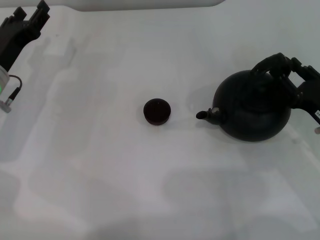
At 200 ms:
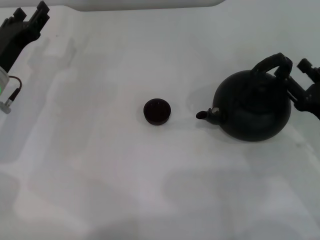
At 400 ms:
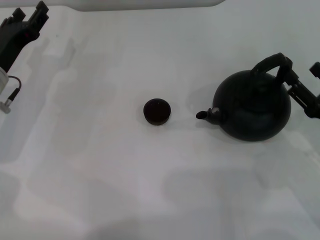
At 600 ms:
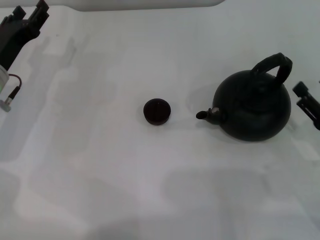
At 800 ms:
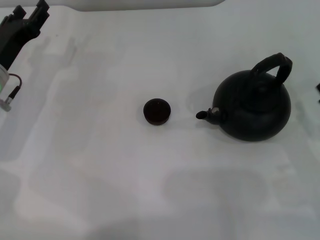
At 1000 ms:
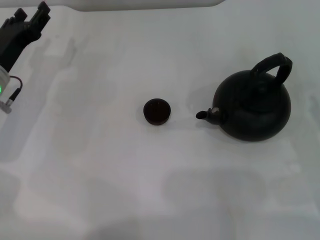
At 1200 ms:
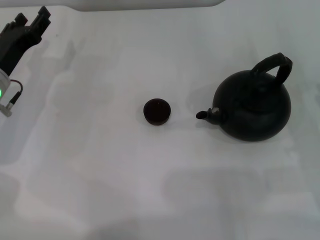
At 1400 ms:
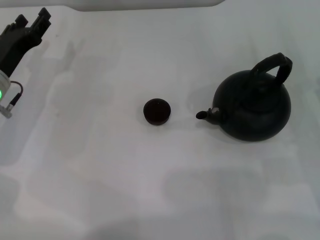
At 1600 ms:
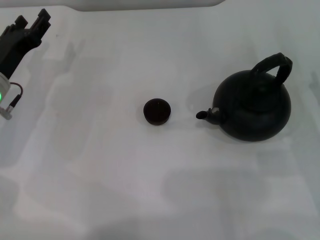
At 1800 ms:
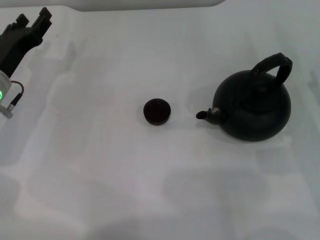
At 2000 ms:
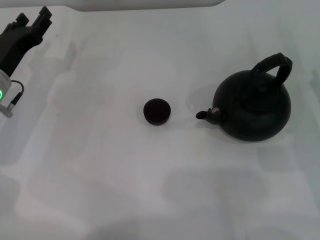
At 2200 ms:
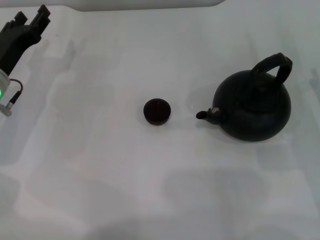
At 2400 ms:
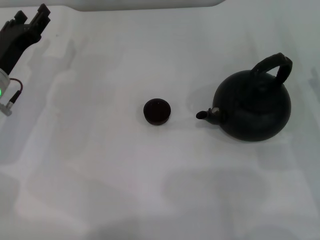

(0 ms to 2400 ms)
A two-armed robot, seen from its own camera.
Task of the whole recording: Grasp the handle of the teapot with one hand and pour tea into the teacup.
0 ms - 1200 ms: The right gripper changes place by about 5 cm, and opens up.

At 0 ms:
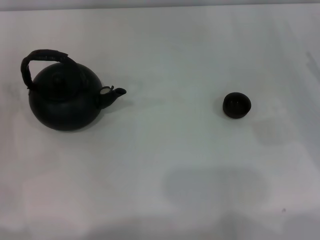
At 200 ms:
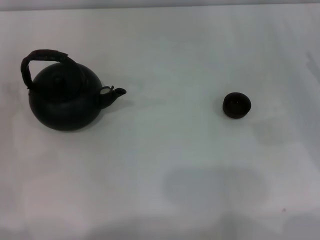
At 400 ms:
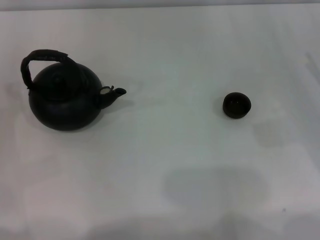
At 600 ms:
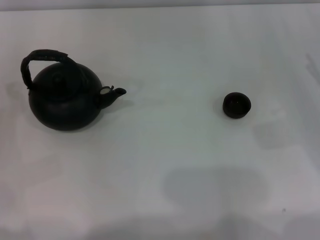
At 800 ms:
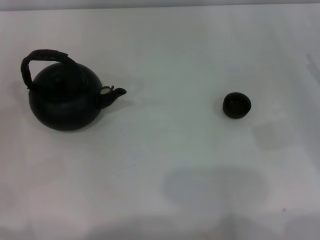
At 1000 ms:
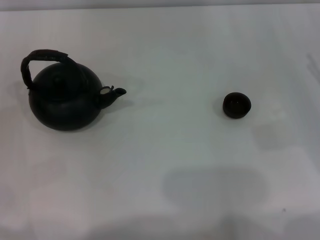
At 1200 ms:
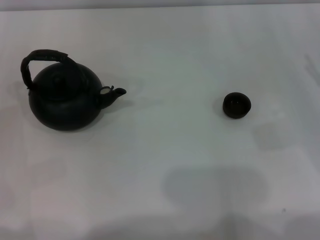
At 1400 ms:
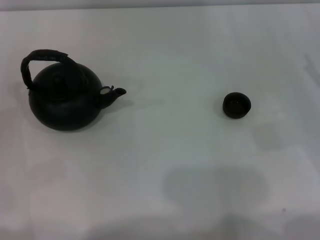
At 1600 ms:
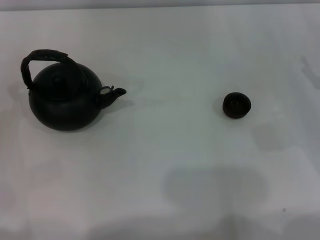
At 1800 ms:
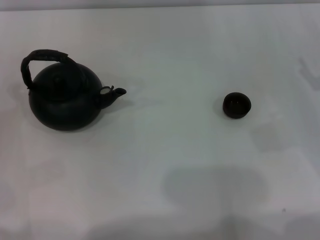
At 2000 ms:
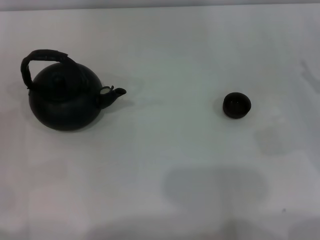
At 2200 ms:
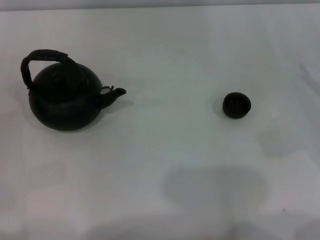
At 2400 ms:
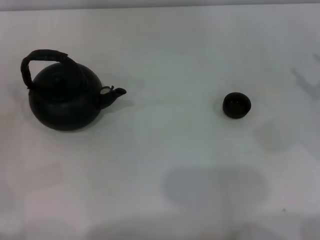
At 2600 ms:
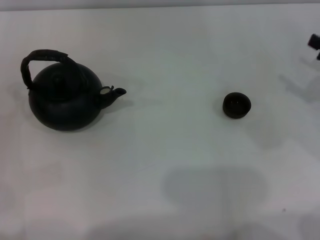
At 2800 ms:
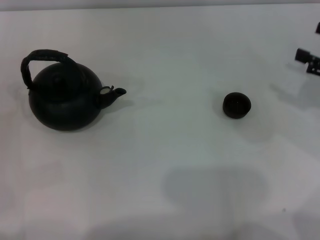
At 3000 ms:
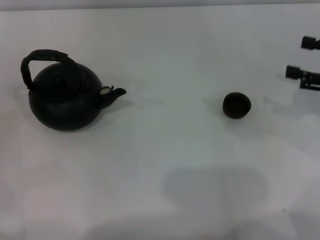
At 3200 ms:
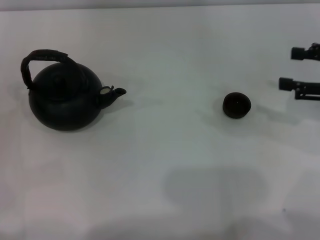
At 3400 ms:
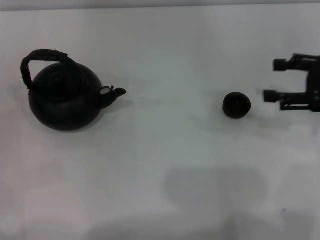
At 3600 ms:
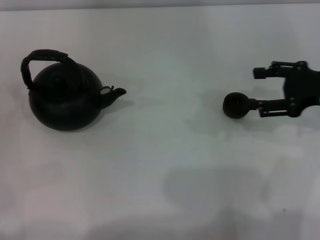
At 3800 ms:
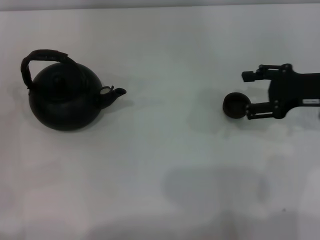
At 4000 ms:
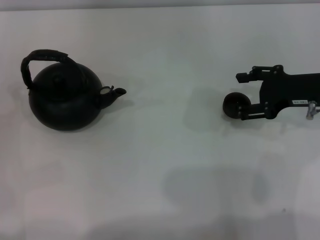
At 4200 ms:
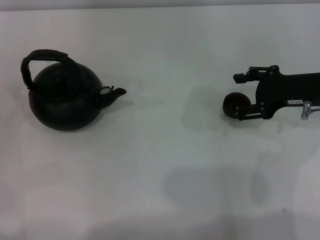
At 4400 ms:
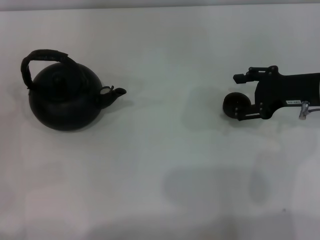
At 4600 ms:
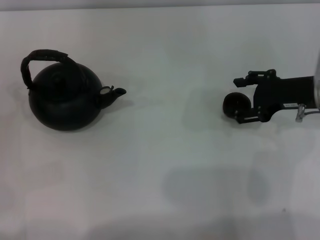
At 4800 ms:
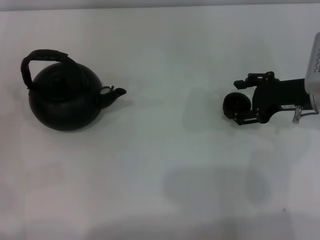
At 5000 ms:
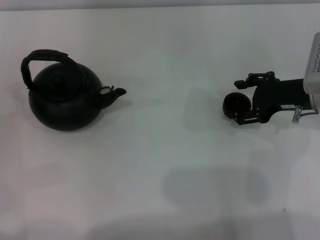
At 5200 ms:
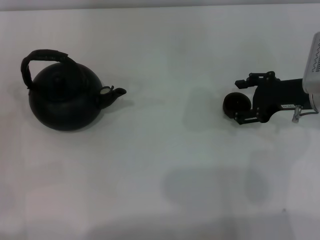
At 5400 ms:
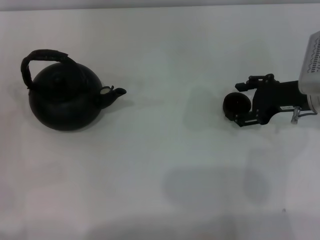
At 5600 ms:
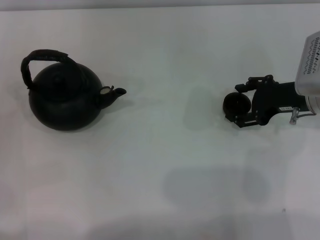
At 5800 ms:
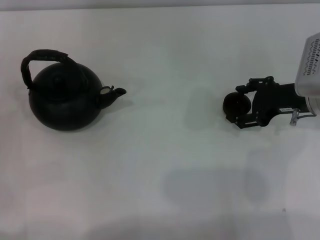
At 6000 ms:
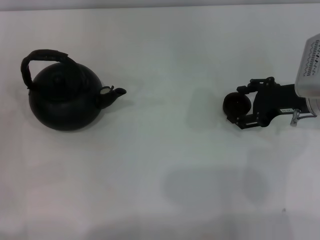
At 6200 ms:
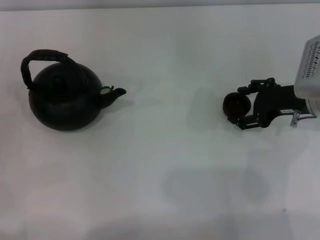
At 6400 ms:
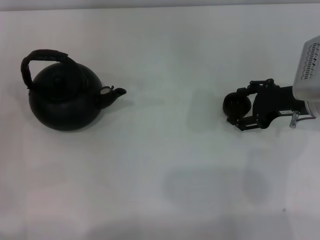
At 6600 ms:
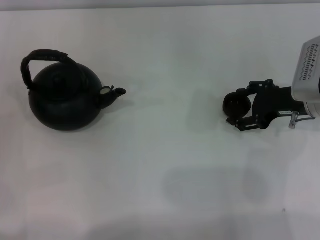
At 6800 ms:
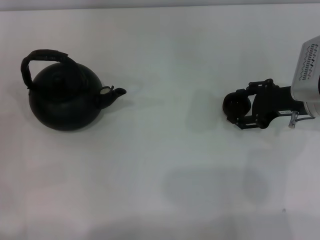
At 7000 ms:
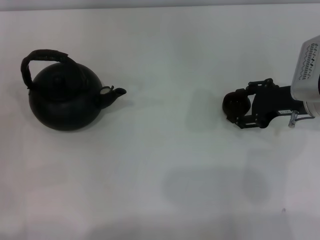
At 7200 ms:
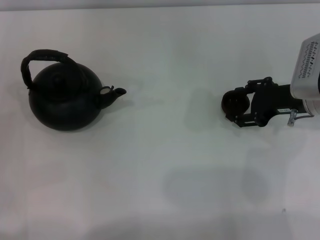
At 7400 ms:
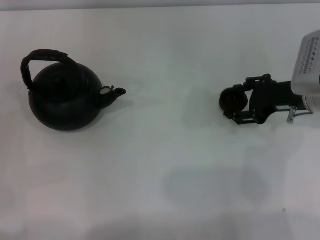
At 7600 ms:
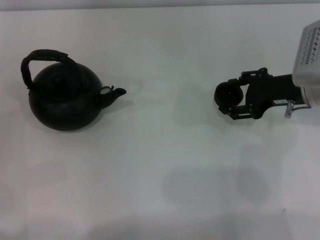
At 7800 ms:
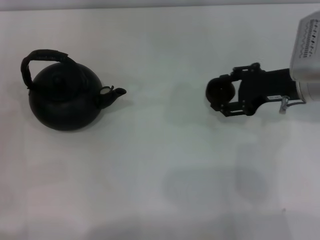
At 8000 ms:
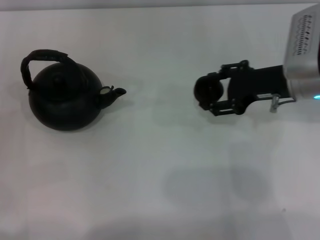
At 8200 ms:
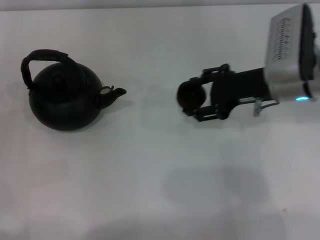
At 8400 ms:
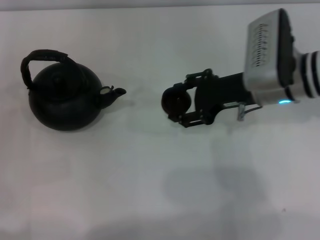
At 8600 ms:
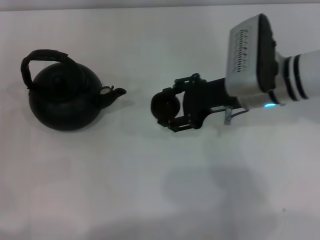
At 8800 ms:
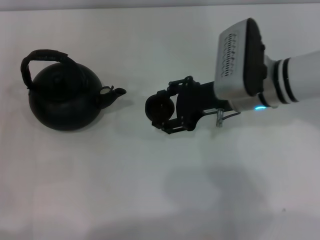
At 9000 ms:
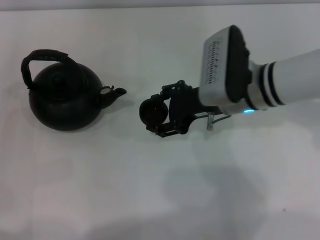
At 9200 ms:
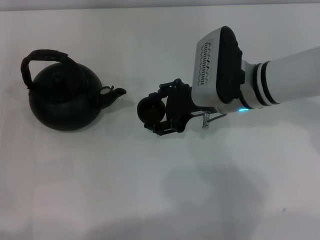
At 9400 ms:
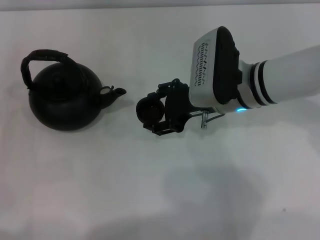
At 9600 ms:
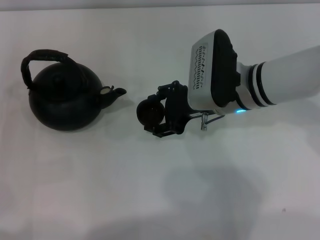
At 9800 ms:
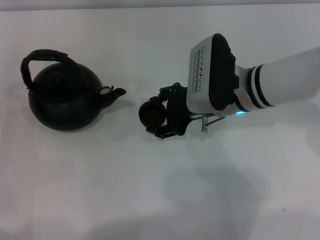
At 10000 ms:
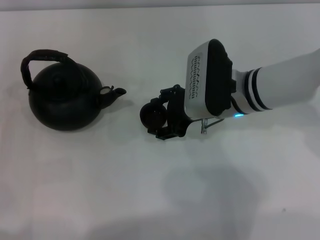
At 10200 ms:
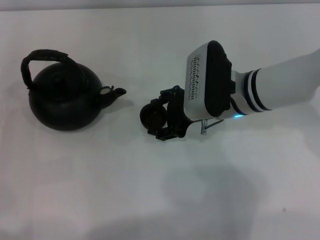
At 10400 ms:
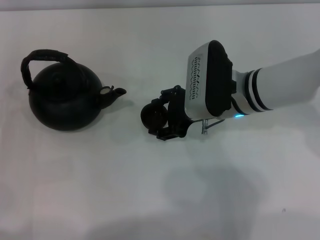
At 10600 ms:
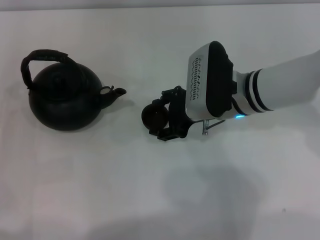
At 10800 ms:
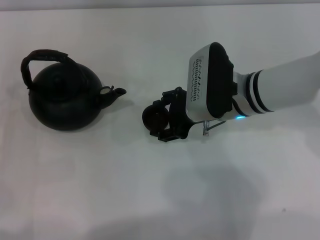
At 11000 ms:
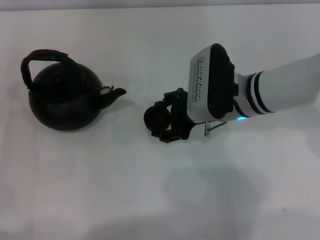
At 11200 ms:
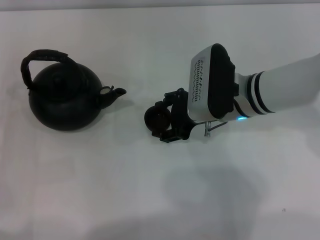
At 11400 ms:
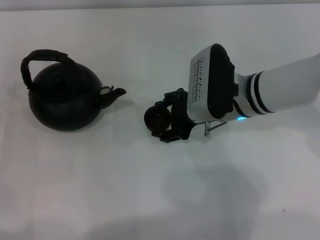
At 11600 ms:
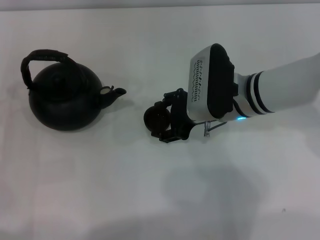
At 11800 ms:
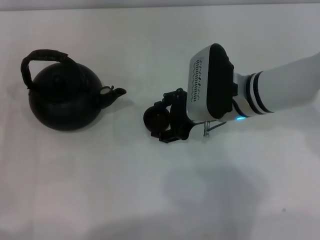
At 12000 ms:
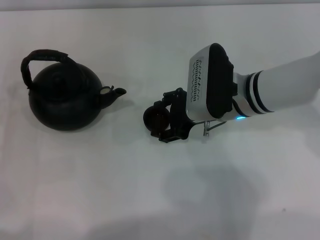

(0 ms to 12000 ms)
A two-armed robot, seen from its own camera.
Task of the whole recording: Grasp the handle of the teapot with one hand and pour tea into the teacup.
Step, 0 ms - 7600 ms: Pick up the teacup with the right gripper.
1600 ms - 3000 ms: The right gripper shifts about 5 cm upward.
3000 ms - 4400 ms: The right gripper heads to the left, covering some 10 cm.
4400 ms - 6000 ms: The grippers stay close to where they were, moving slightly.
6000 ms - 7600 ms: The right gripper closes its fingers.
7600 ms - 9000 ms: The right gripper shifts approximately 10 cm to the left.
9000 ms - 10400 ms: The grippers make only small movements.
10400 ms - 12000 ms: The two grippers keep their place.

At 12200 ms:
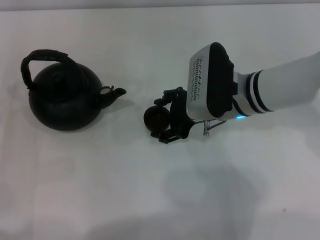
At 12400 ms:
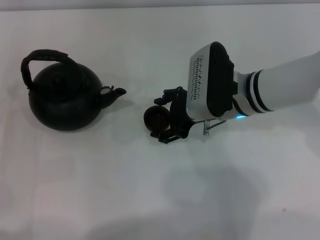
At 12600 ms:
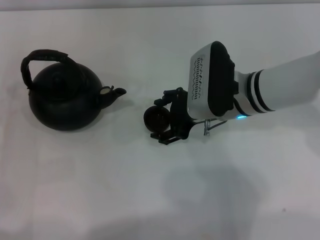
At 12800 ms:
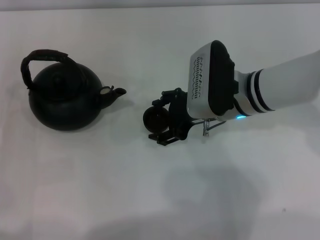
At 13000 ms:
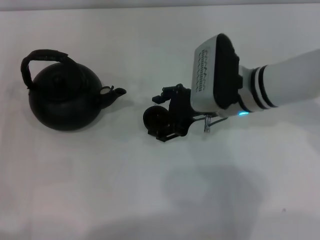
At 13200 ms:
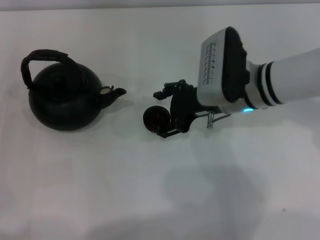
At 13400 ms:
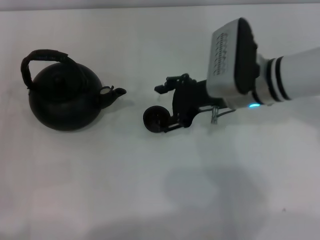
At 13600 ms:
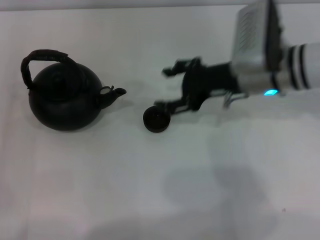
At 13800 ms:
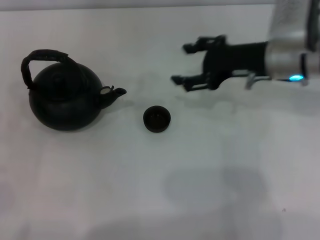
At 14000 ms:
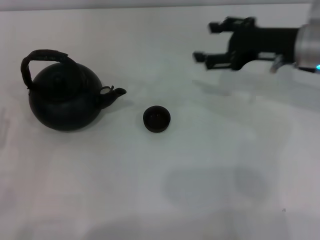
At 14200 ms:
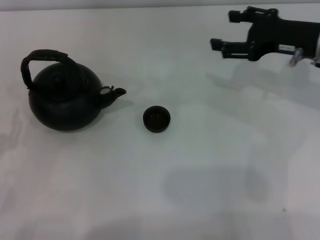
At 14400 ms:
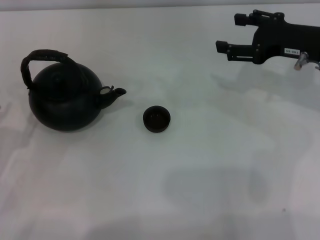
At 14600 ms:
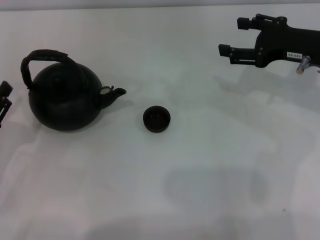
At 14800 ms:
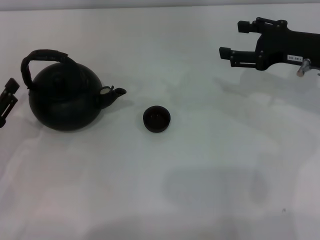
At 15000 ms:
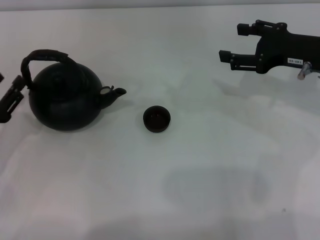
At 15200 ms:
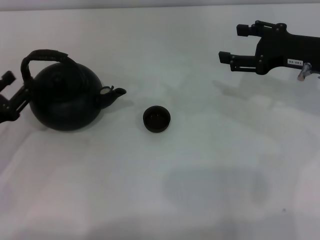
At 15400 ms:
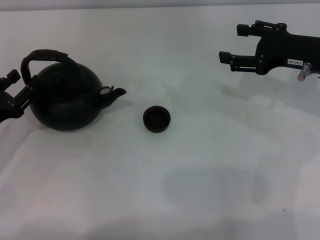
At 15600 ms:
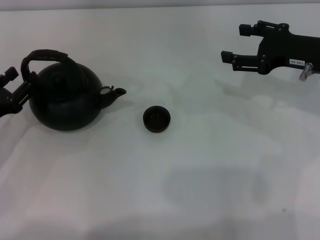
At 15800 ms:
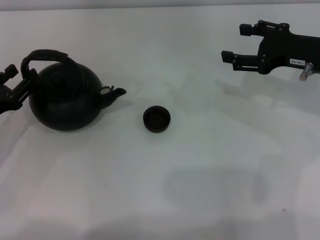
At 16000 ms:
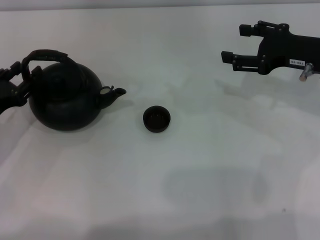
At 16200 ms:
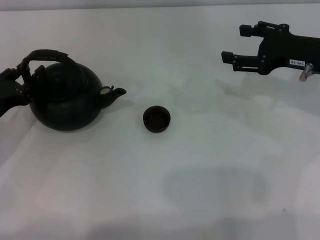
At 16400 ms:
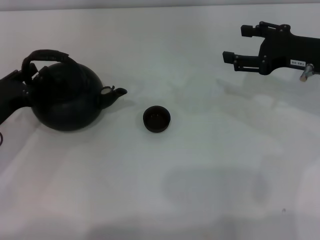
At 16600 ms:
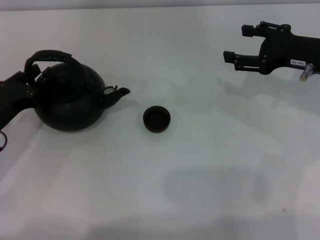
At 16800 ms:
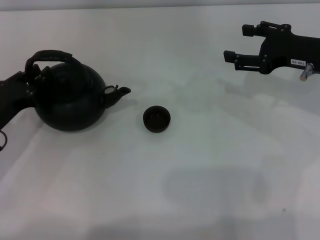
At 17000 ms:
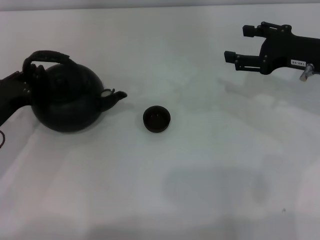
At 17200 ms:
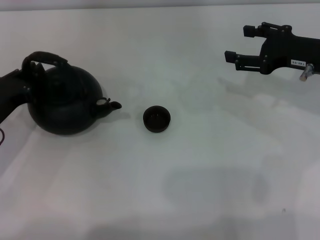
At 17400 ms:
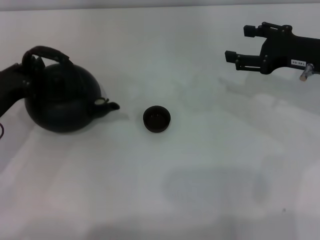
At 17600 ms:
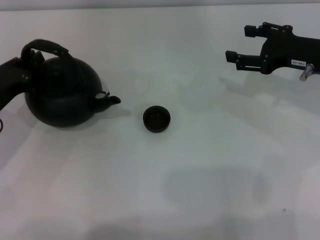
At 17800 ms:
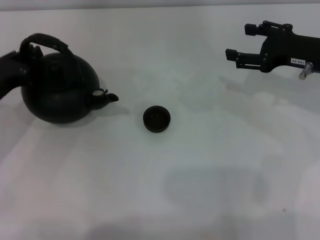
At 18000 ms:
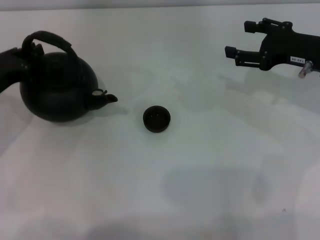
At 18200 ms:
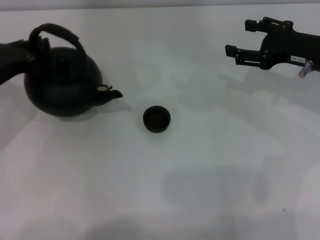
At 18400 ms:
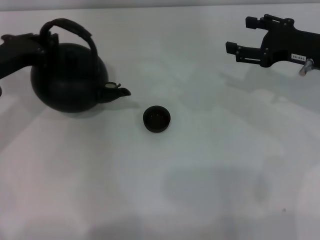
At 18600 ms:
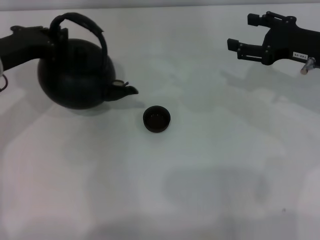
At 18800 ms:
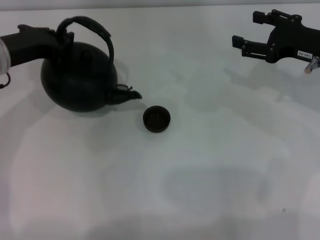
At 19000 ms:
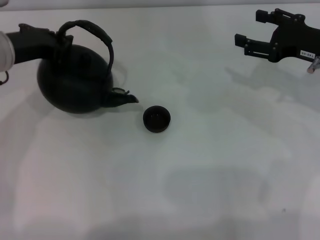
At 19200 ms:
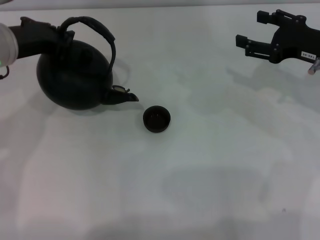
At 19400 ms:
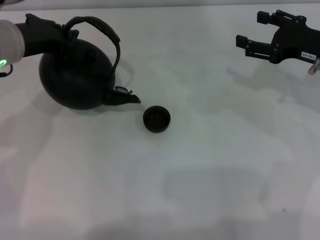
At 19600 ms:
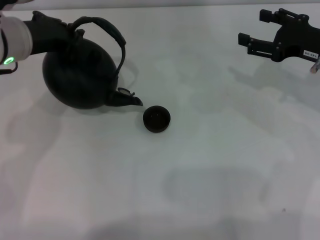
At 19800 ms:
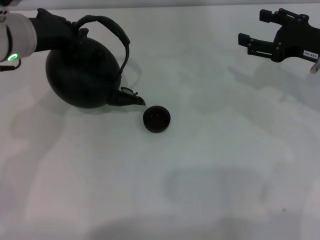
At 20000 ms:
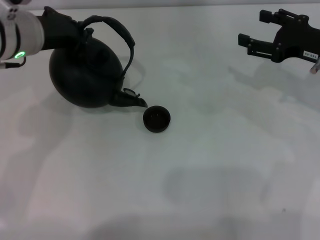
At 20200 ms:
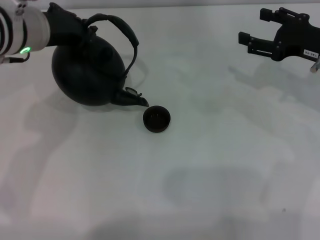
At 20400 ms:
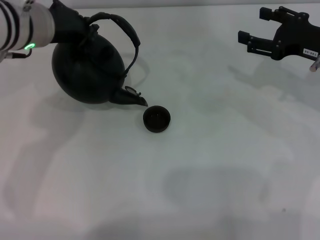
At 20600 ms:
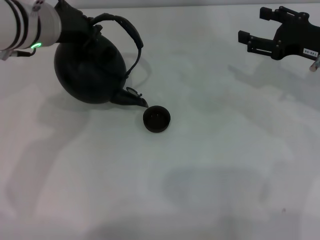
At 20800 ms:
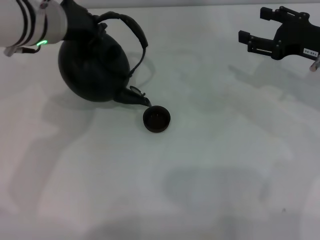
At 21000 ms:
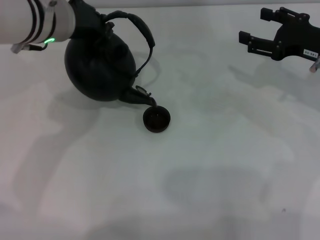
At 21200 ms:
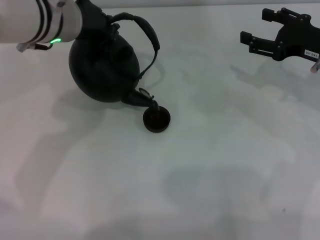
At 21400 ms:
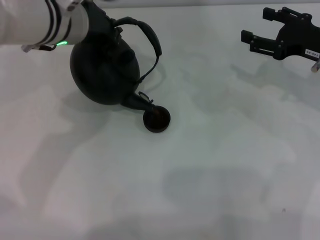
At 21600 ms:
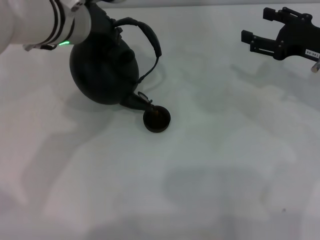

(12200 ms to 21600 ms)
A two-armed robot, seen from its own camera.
Task of the whole recording: Grasp the handle of the teapot with one hand and pour tea into the teacup.
Step, 13800 ms - 18800 ms: Pick up the teapot with the left gripper.
12200 ms - 13800 ms: The right gripper moves to the right and upward, some 10 cm, and opens up.
13800 ms - 15400 ms: The right gripper travels to the right by approximately 10 cm; the left gripper heads forward, covering some 5 cm.
15400 ms - 17000 ms: The left gripper closes its fingers.
17000 ms - 18400 ms: The left gripper moves upward and forward, approximately 10 cm.
18400 ms - 20000 ms: The left gripper is displaced to the right and upward by some 10 cm.
20000 ms - 21600 ms: The left gripper moves to the right, about 5 cm.
